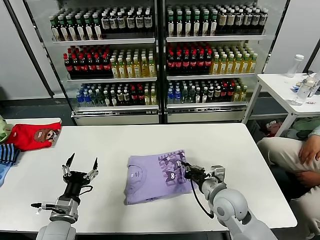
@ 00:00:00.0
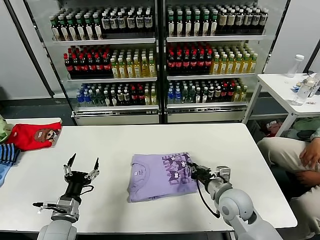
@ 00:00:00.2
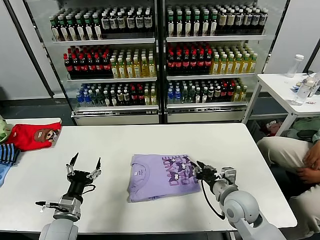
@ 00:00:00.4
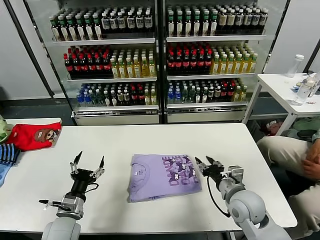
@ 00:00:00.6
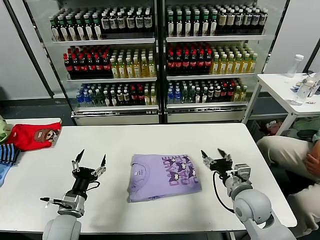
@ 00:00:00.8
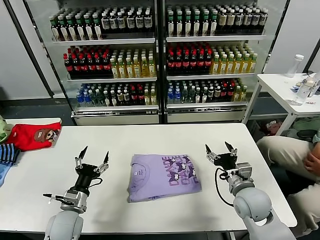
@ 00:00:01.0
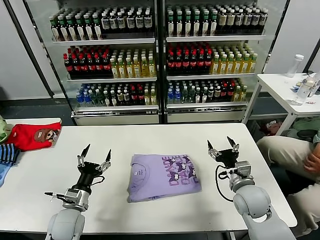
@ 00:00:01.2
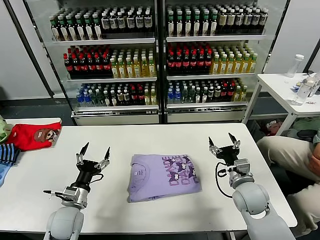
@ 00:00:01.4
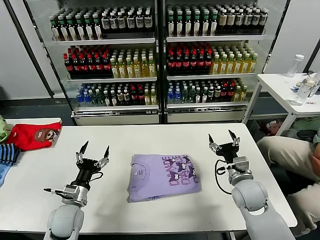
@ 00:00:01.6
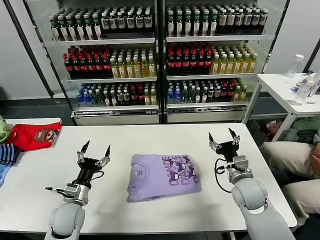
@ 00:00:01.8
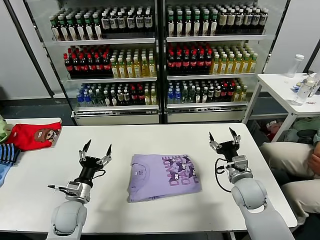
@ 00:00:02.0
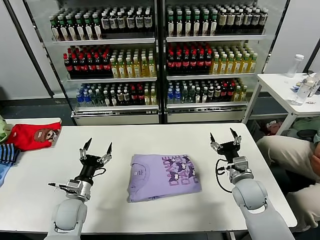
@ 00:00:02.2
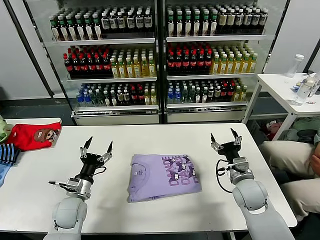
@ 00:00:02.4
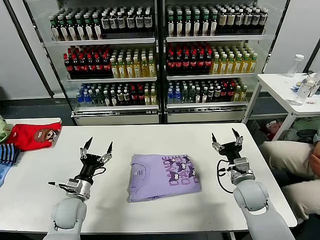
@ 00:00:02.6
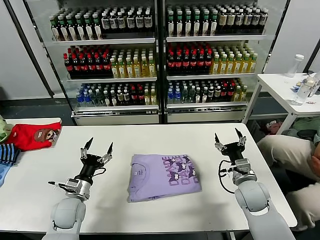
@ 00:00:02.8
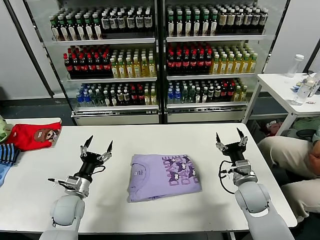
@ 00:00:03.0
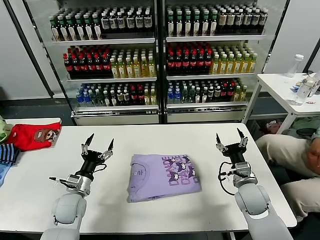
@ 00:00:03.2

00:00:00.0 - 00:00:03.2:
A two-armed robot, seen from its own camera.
Task of the whole recording: fold and organize the clothes.
00:00:00.0 - 00:00:01.6: The left gripper shifts approximately 5 cm forward. Meanwhile the right gripper heads to the right, covering roughly 10 cm, and opens.
00:00:01.6 - 00:00:03.2: The grippers move only a little.
